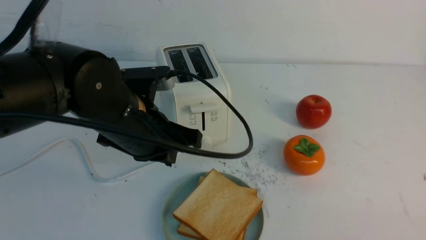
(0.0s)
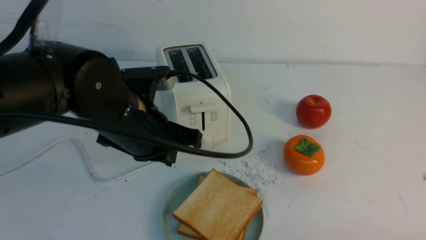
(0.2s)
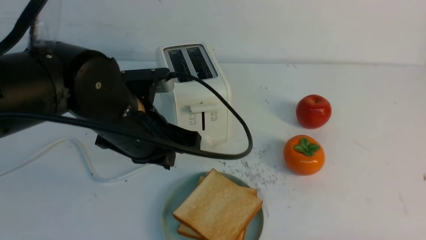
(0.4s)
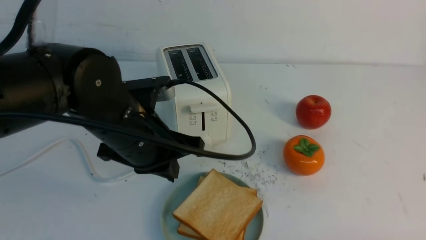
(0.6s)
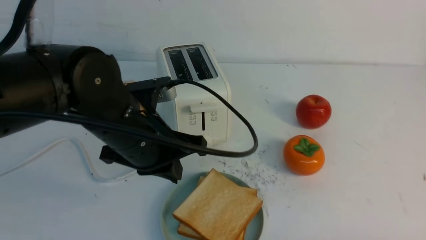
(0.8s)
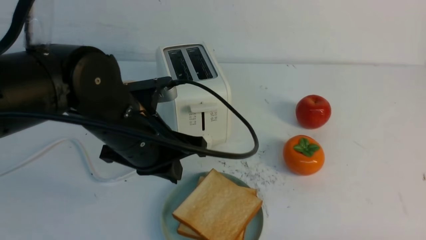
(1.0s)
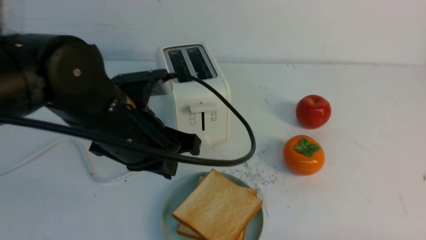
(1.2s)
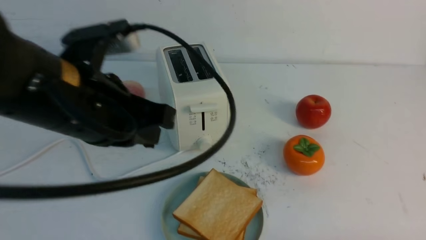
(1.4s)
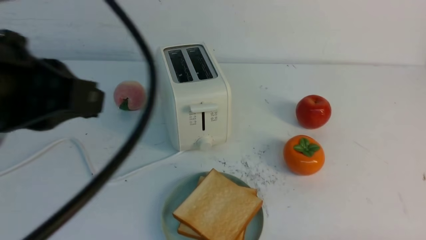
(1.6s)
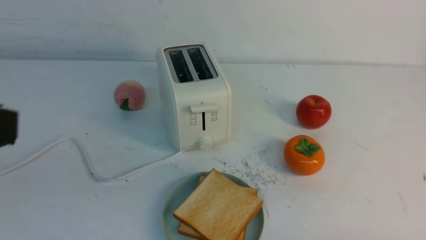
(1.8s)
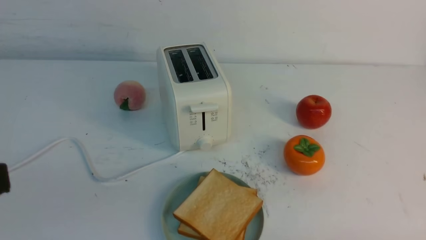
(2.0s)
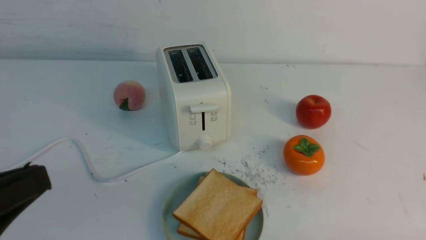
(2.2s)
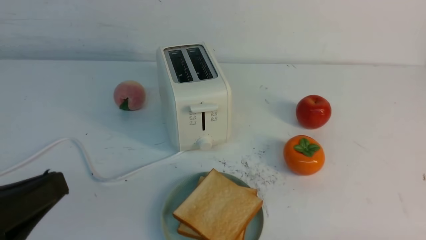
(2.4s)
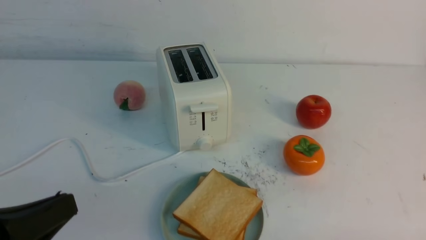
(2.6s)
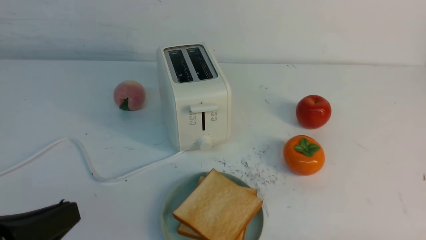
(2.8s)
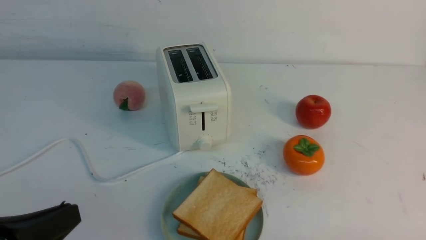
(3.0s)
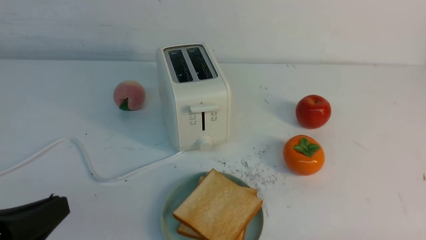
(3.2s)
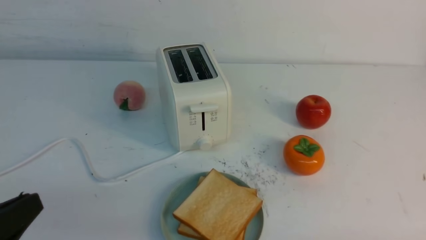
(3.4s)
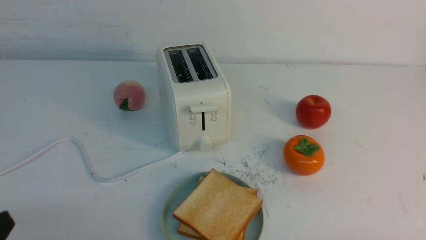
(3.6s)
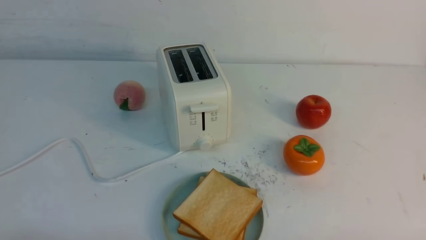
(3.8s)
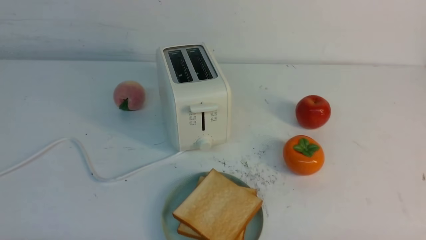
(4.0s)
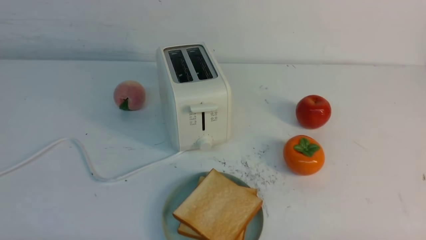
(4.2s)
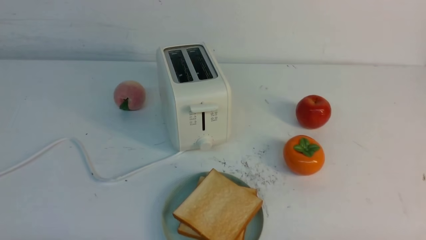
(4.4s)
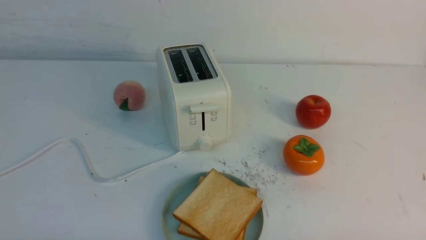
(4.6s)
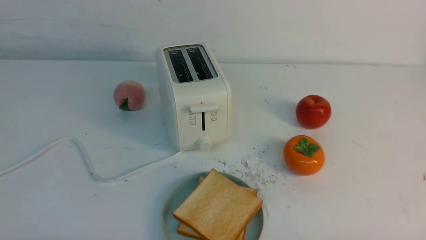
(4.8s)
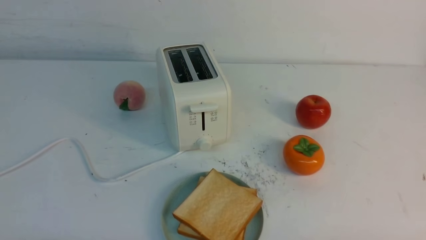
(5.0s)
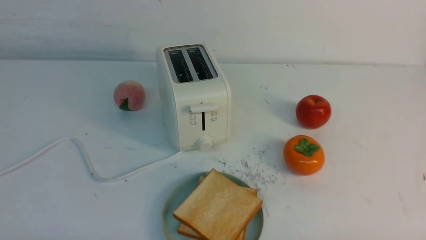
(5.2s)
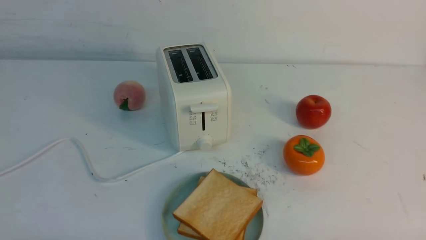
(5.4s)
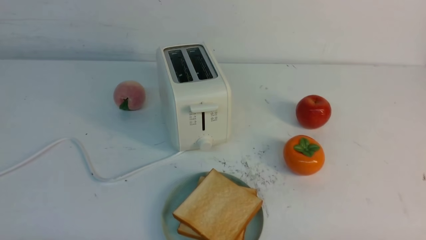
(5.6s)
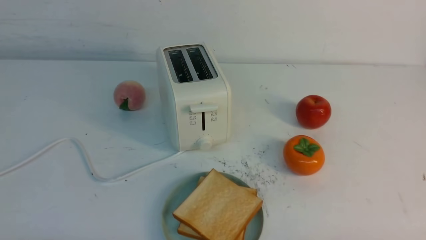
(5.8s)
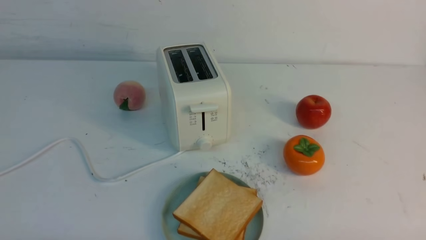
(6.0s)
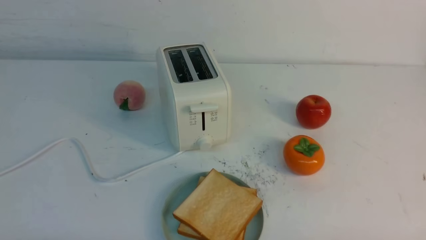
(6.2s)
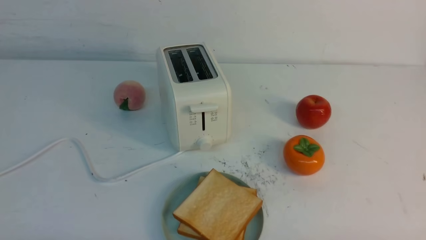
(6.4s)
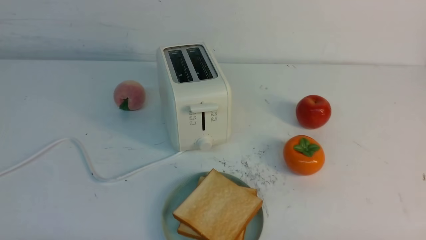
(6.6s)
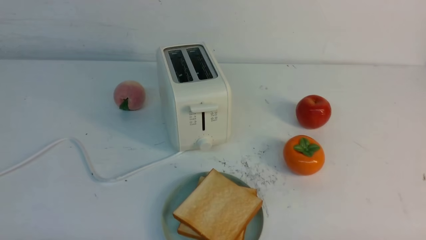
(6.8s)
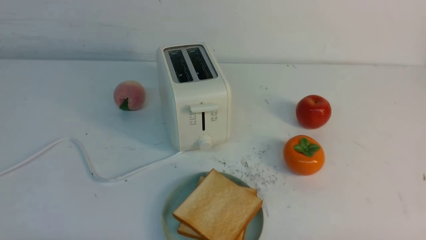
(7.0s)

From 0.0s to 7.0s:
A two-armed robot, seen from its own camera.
Task of the whole recording: take toasted bread from bread machine on white table place on plate.
From 0.0s to 1.4s: The right gripper heads downward, covering approximately 5 cm; the left gripper travels upward and backward by approximately 10 cm.
From 1.4s to 2.8s: The left gripper goes some 20 cm backward, downward and to the left.
From 2.8s to 4.2s: The left gripper heads downward, covering about 10 cm.
From 4.2s to 7.0s: Both grippers stay put.
